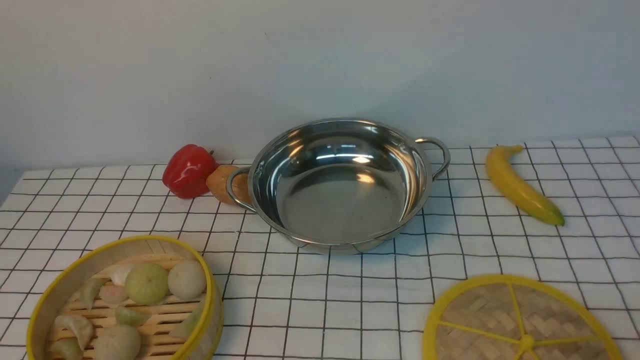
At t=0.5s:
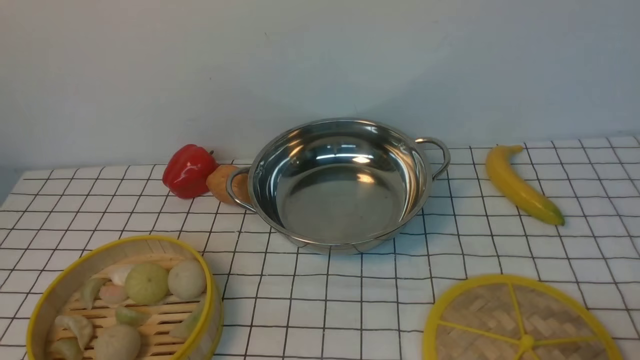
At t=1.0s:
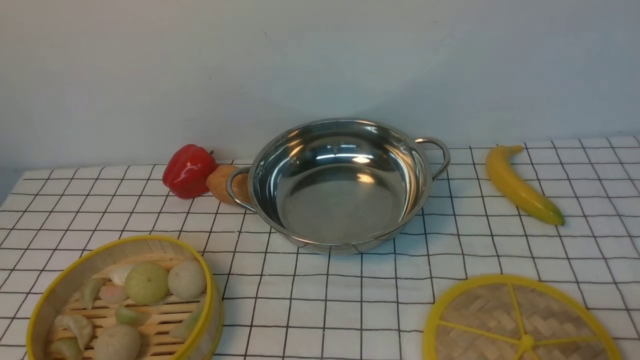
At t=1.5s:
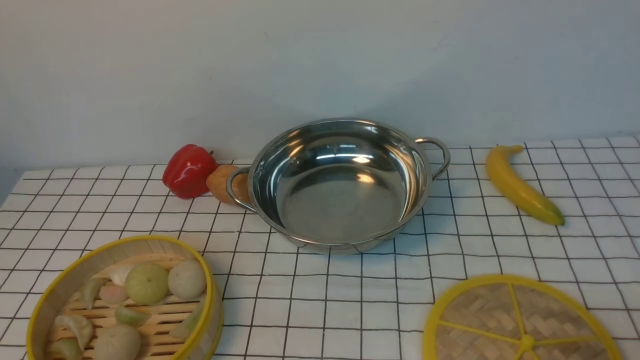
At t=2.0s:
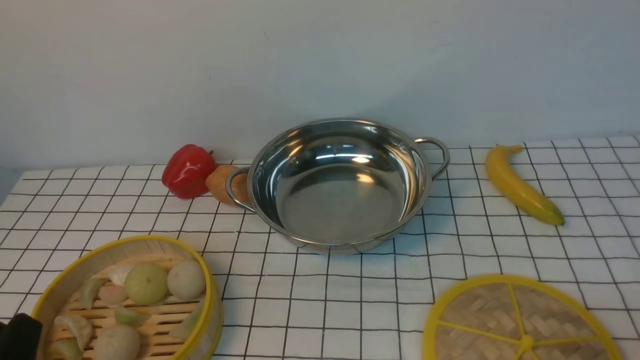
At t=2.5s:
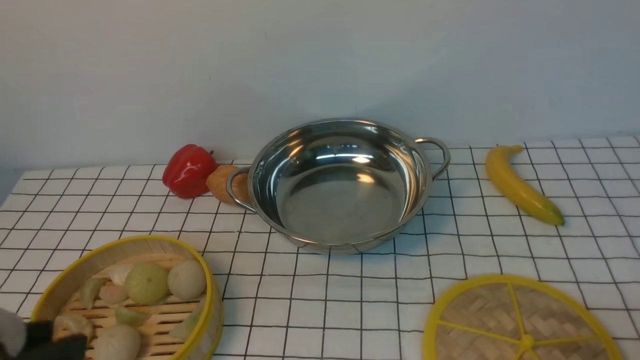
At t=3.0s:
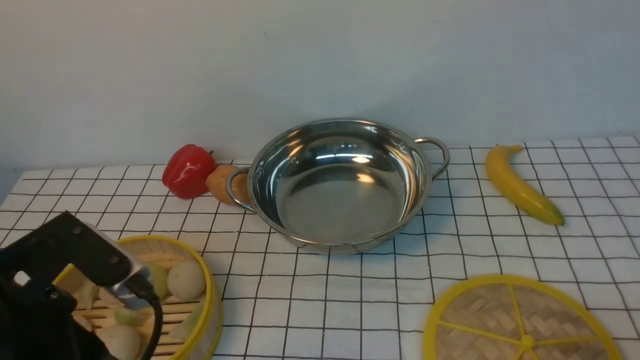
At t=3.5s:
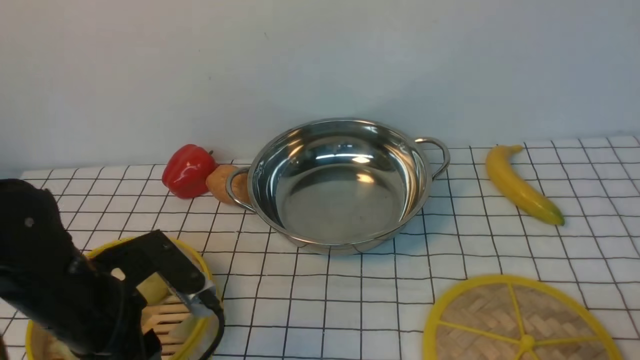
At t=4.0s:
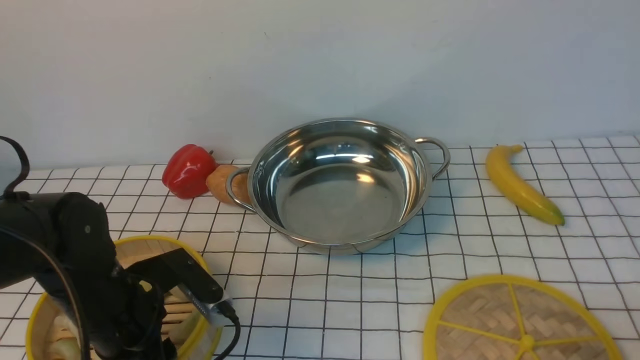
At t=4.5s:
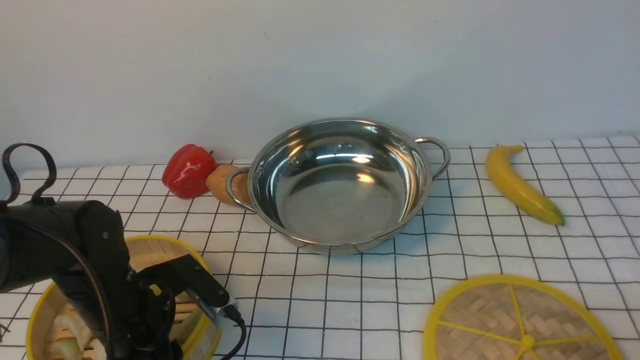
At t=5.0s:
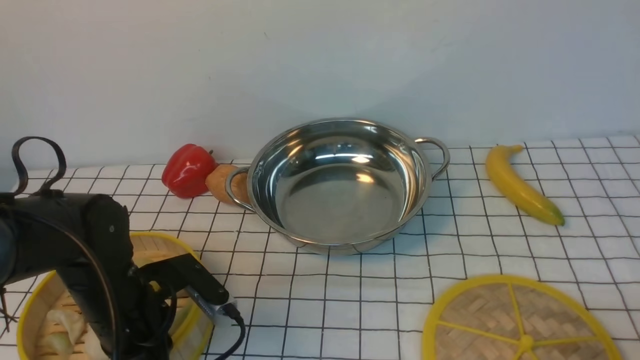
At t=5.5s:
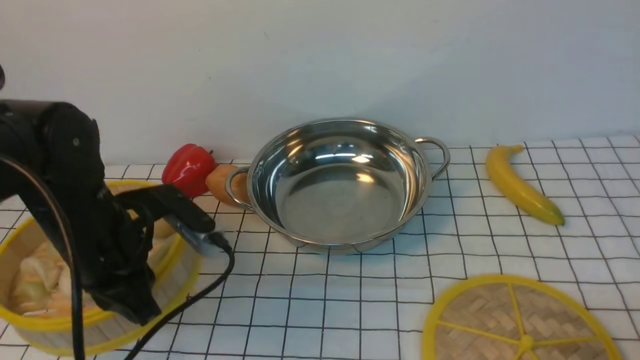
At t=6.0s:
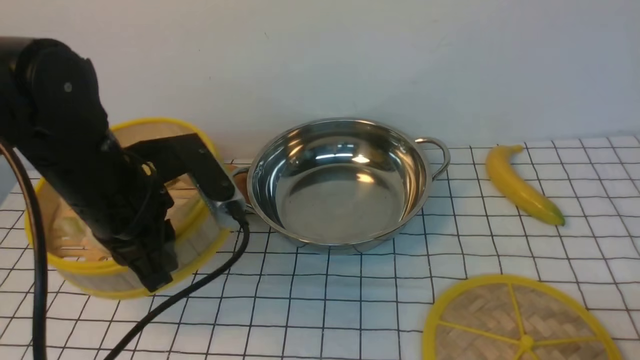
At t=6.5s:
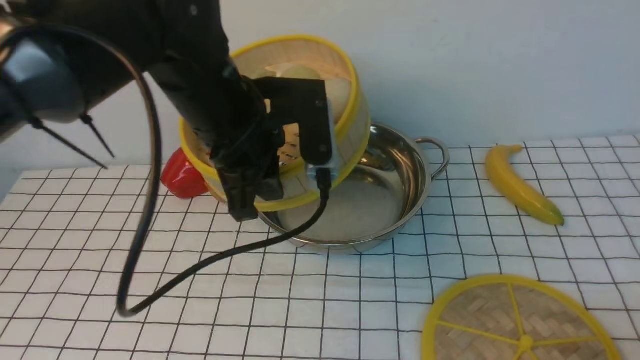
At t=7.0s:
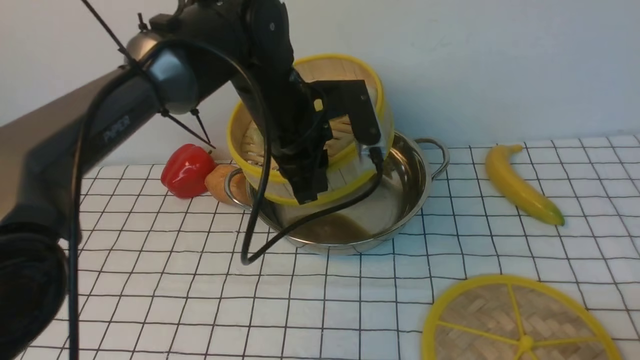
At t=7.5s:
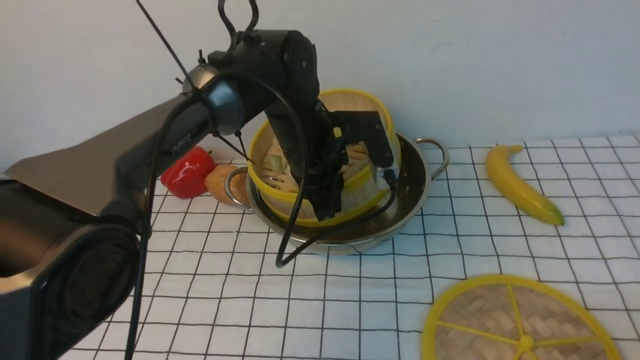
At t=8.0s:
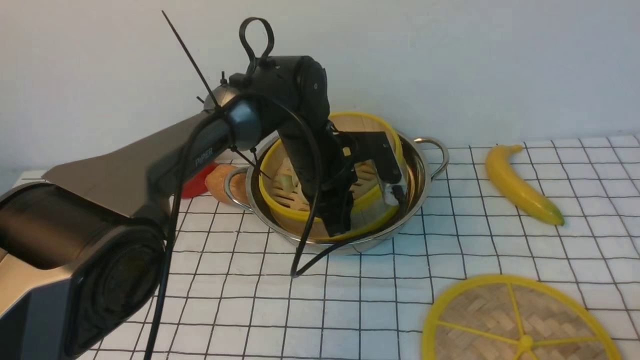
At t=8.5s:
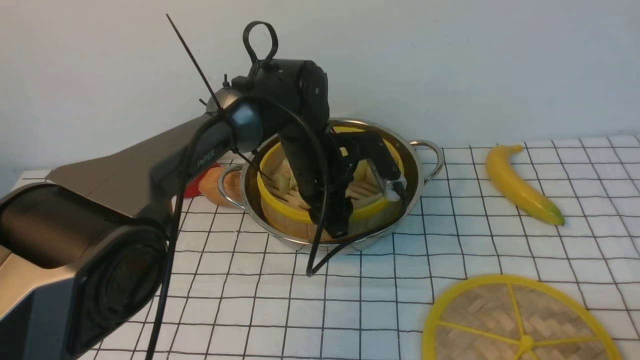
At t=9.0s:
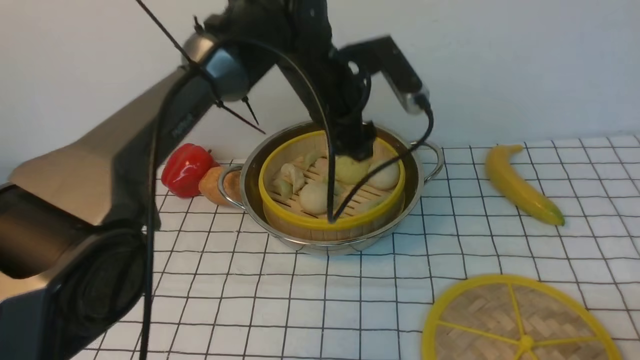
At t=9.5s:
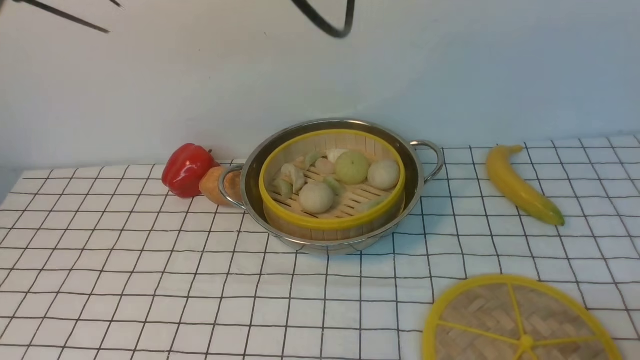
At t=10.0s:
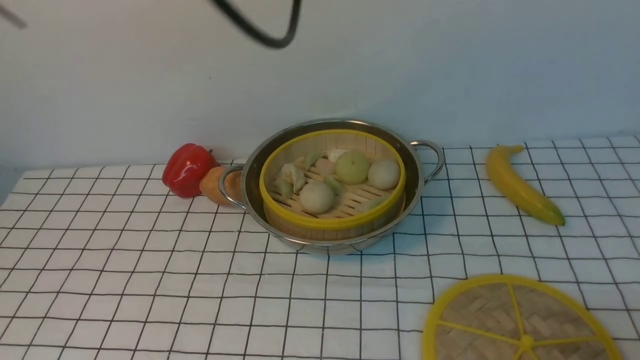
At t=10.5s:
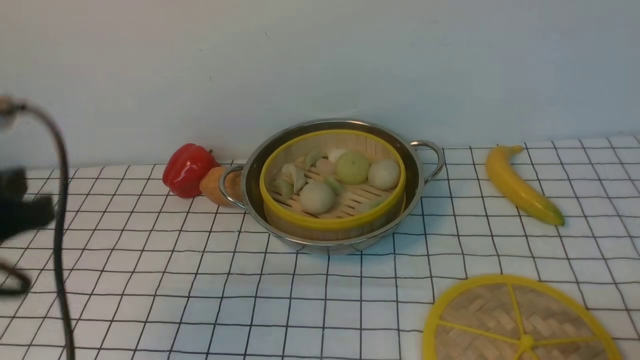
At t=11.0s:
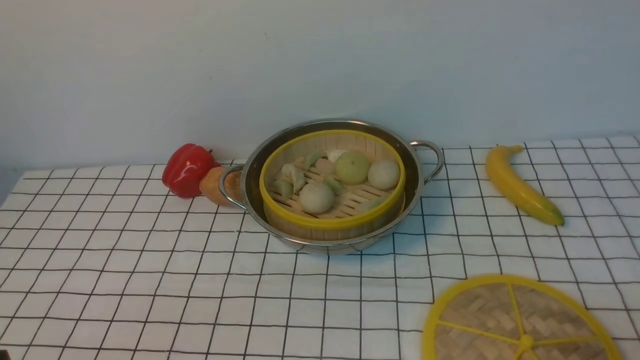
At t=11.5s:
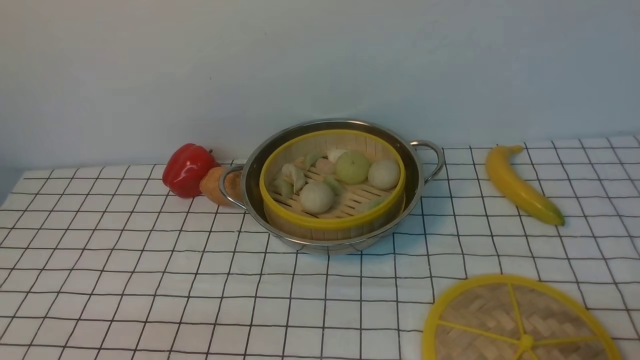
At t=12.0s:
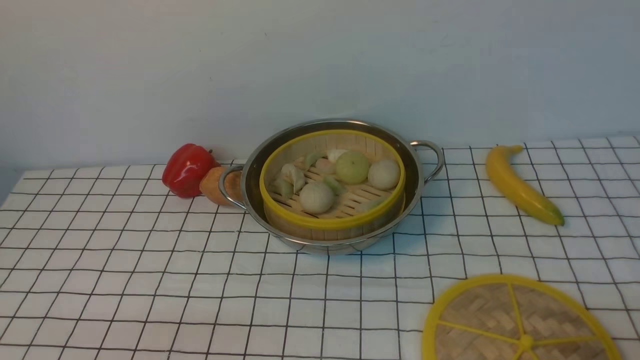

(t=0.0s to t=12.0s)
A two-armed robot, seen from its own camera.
Task of the whole recording: place the steamer in the pot on the white tablecloth, and put the lid on the steamer.
Step, t=0.0s - t=5.0s: use the left arm to lift the steamer closest to it.
Step, t=5.5s - t=8.5s: use the left arm to put the steamer into the iron steamer pot in the middle.
t=2.0s - t=4.0s: The left gripper goes about 20 cm forward.
t=4.0s - t=6.0s: The left gripper goes some 10 cm upward, and closes.
t=6.0s - t=8.0s: The left gripper is displaced to the right, forward and downward by about 25 cm.
t=8.0s - t=10.0s: The left gripper heads upward, covering roughly 30 cm, and opens.
t=10.0s - t=12.0s: The left gripper heads downward, backward and to the left, covering roughly 50 cm.

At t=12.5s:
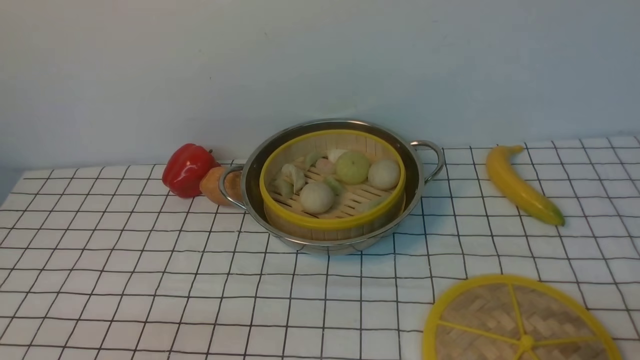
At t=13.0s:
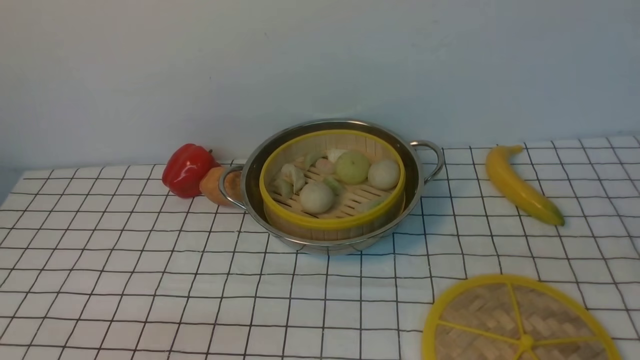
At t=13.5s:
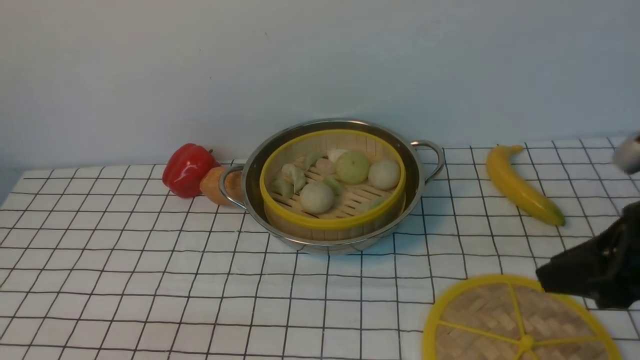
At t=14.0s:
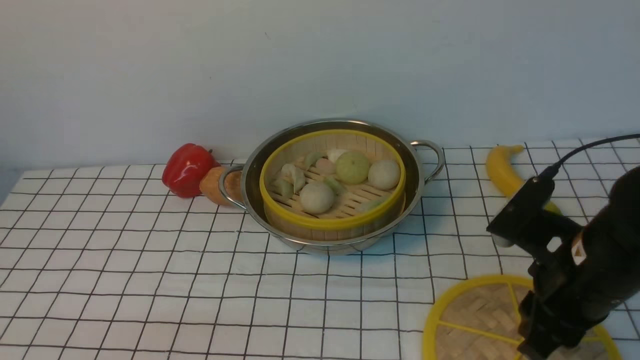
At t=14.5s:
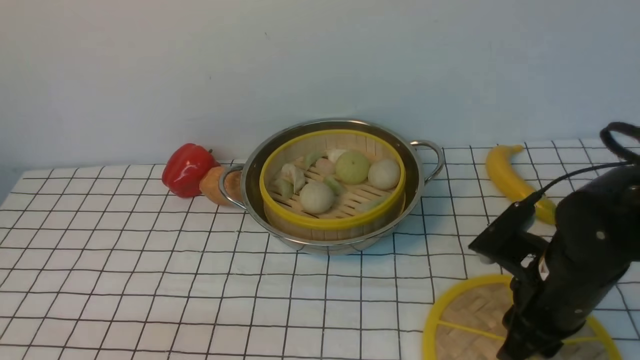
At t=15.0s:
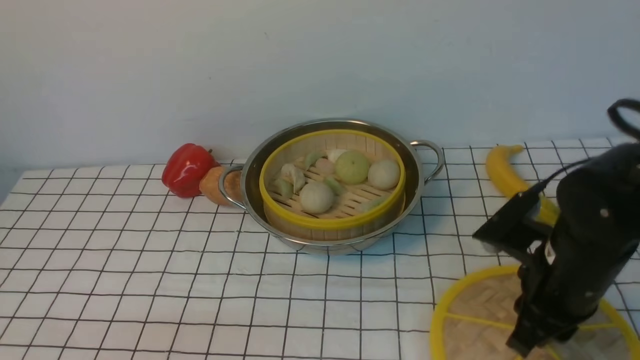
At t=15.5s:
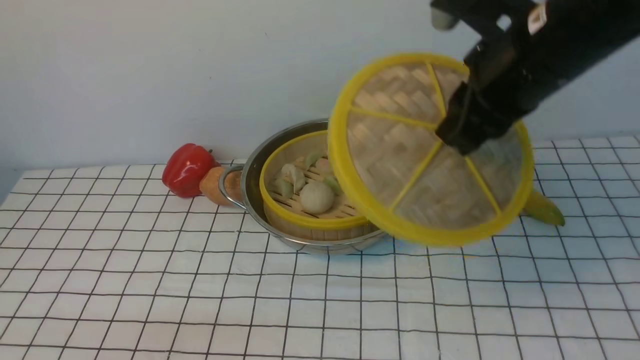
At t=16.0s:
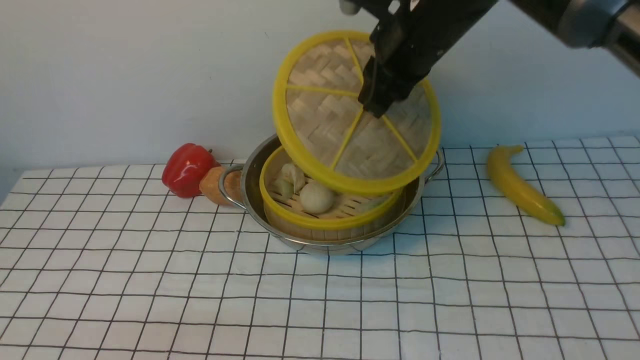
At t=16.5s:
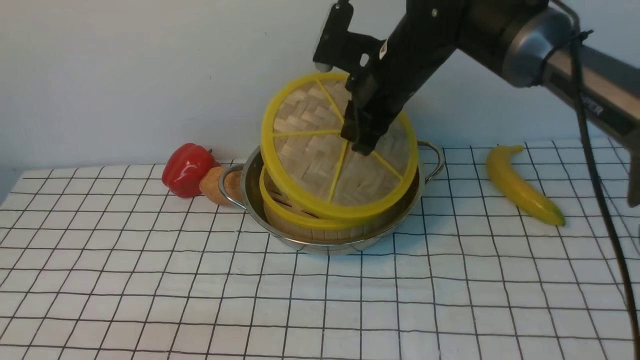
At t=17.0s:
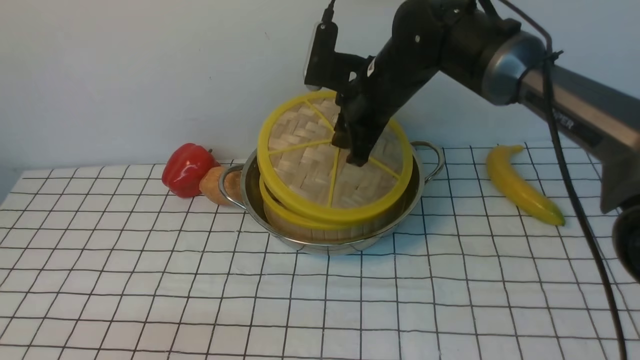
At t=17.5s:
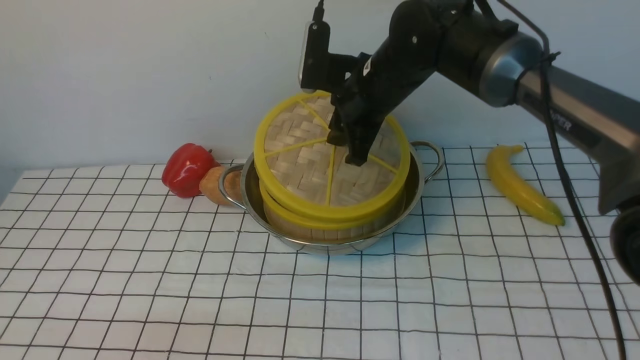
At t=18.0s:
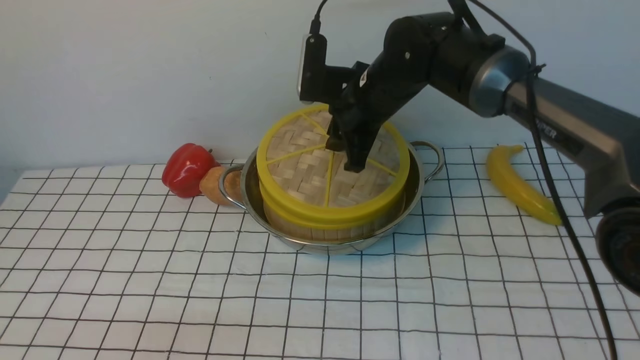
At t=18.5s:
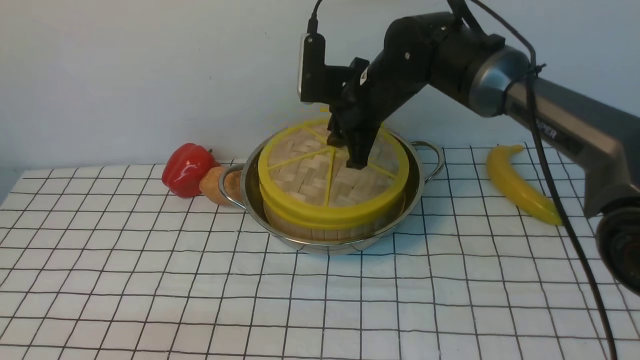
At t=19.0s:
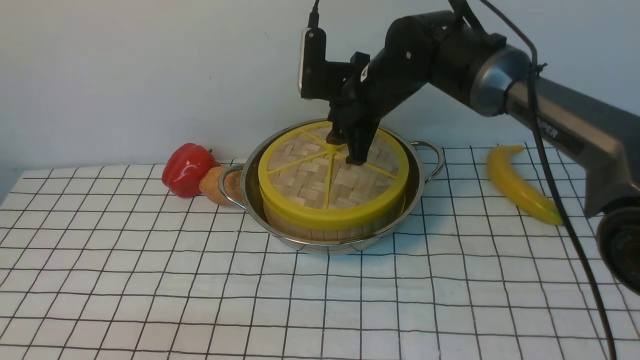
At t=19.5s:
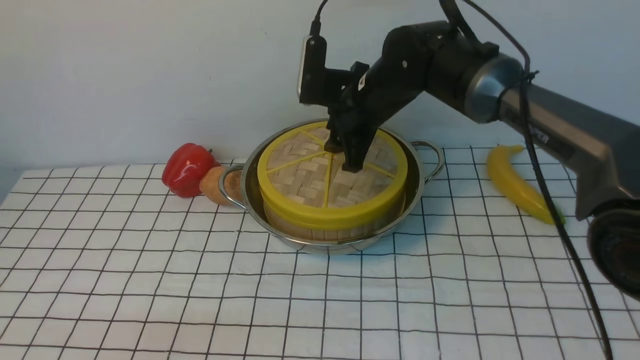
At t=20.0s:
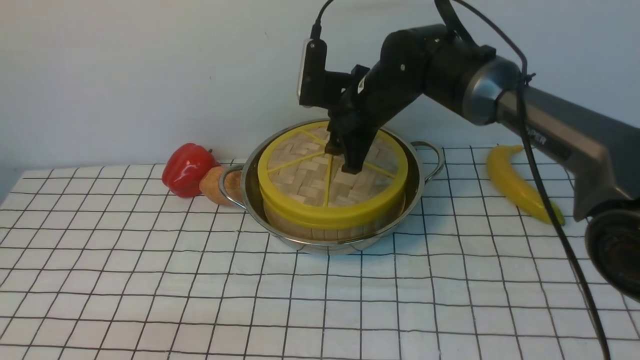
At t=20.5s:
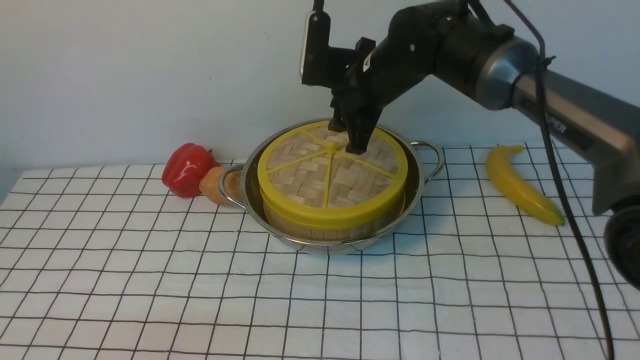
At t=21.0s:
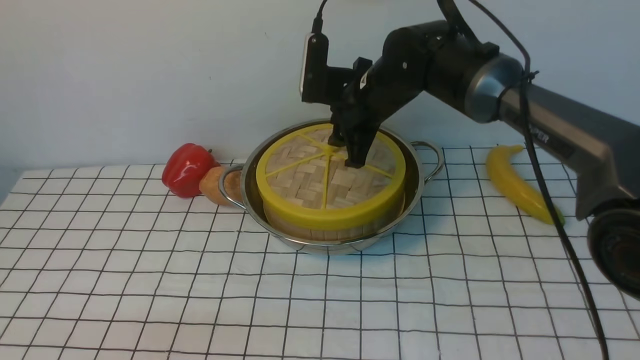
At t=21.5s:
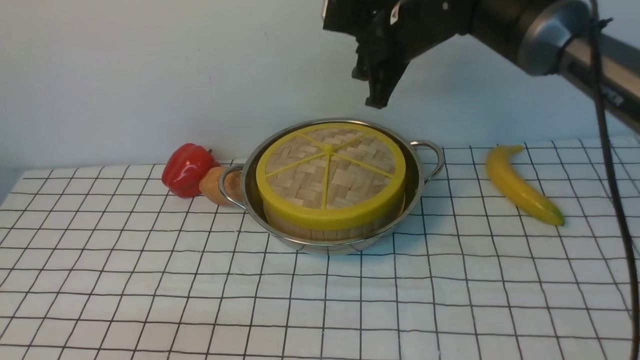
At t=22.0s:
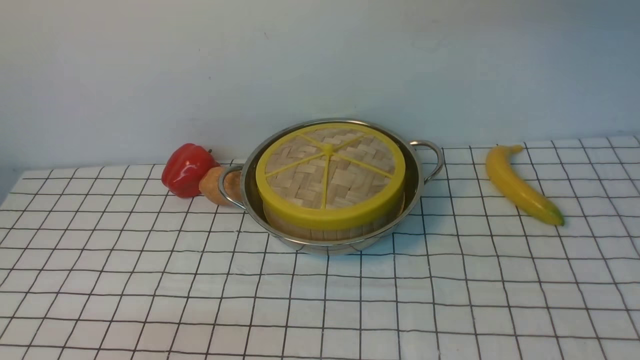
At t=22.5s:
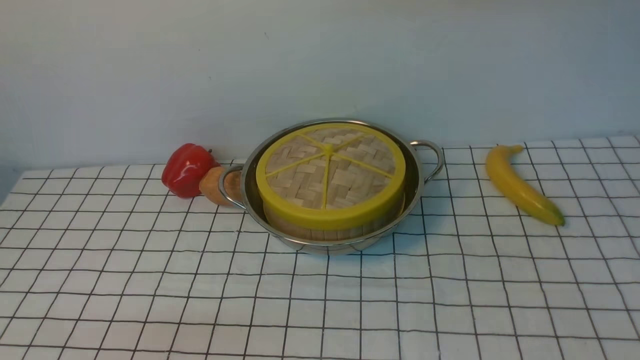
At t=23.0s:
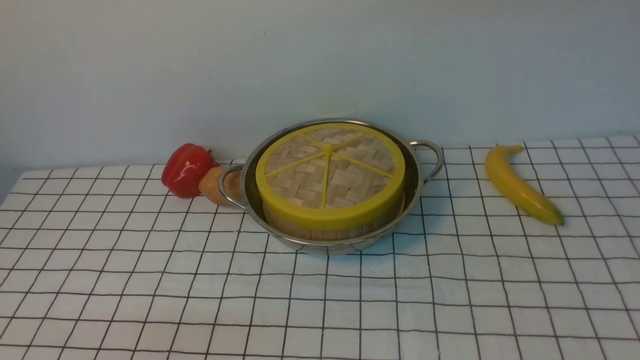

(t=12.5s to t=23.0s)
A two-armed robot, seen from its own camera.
Task of the whole recording: place the steamer in the pot on the white tablecloth, and put the lid on the steamer.
Step, t=12.5s - t=15.0s: use the right arm to lift the lid of the steamer.
Step, t=15.5s - t=21.0s: use the right arm to place the steamer lid on the steamer.
t=12.5s - t=14.5s: The right gripper shifts approximately 20 cm forward and to the left.
t=14.5s - t=16.5s: The right gripper shifts roughly 25 cm forward, to the left and upward.
t=16.5s - t=19.0s: The right gripper moves about 5 cm, and opens its fingers.
t=19.0s - t=21.0s: The grippers make only small movements.
t=21.0s - t=23.0s: The right gripper heads upward and to the right, covering about 30 cm, and closes its fingers.
